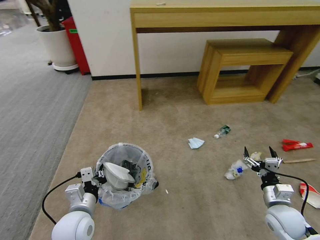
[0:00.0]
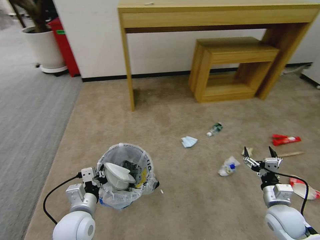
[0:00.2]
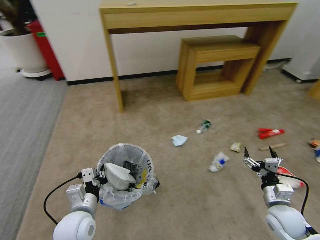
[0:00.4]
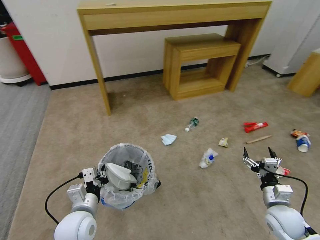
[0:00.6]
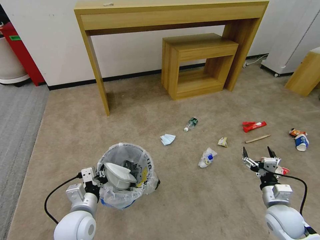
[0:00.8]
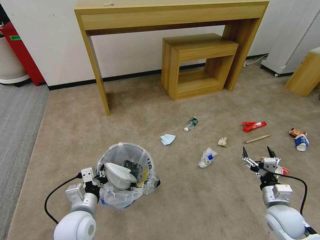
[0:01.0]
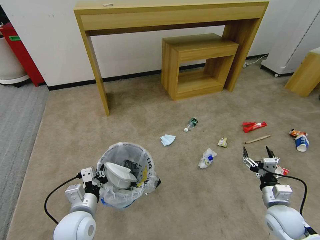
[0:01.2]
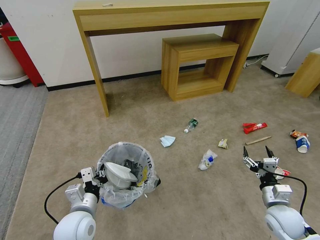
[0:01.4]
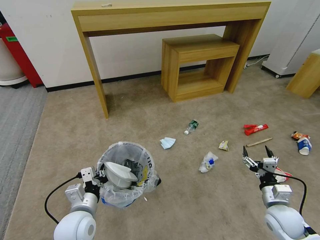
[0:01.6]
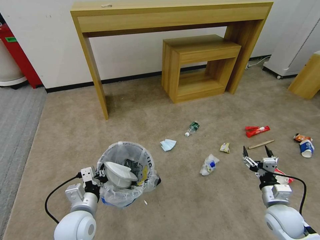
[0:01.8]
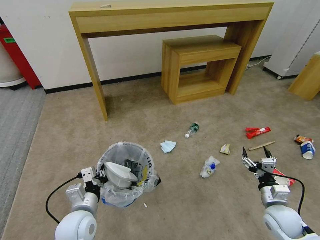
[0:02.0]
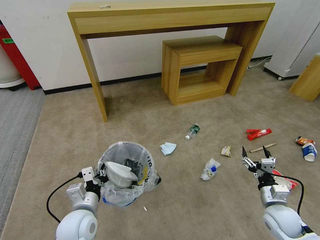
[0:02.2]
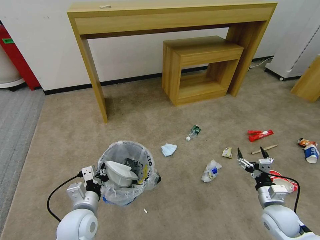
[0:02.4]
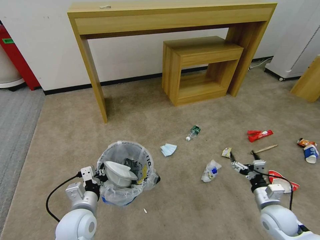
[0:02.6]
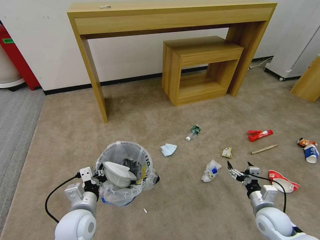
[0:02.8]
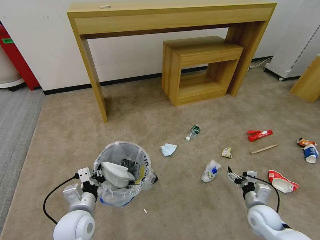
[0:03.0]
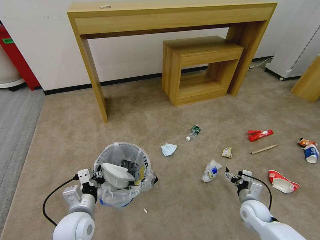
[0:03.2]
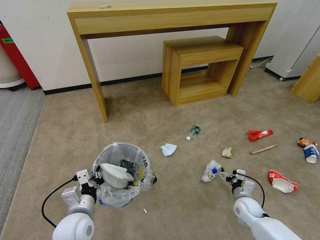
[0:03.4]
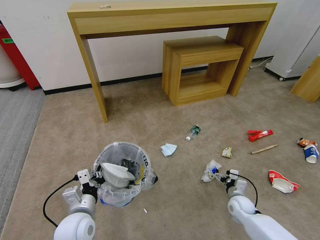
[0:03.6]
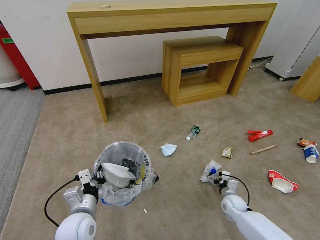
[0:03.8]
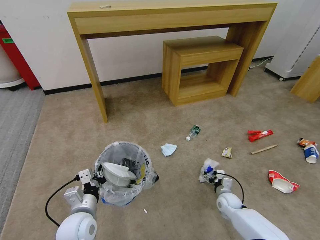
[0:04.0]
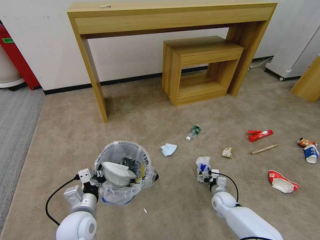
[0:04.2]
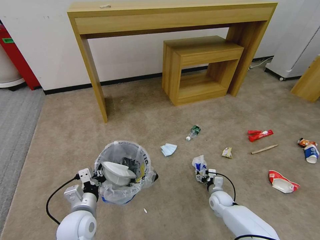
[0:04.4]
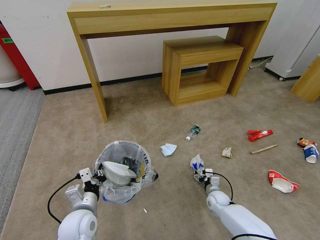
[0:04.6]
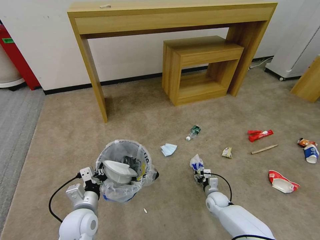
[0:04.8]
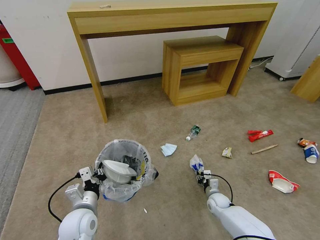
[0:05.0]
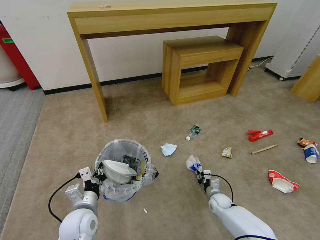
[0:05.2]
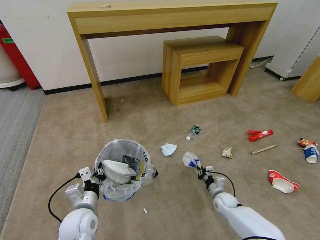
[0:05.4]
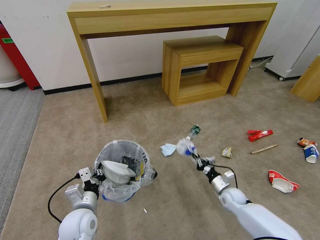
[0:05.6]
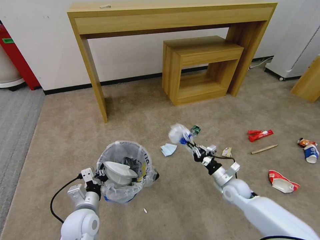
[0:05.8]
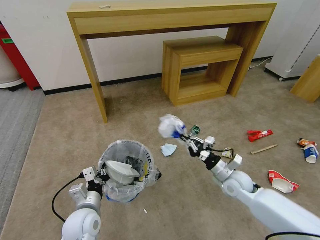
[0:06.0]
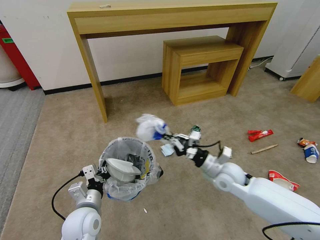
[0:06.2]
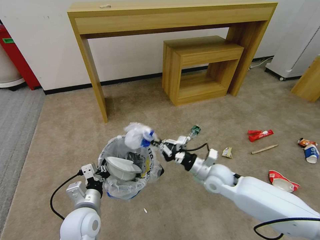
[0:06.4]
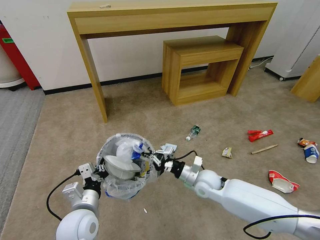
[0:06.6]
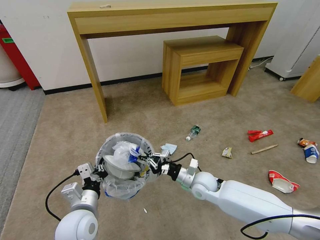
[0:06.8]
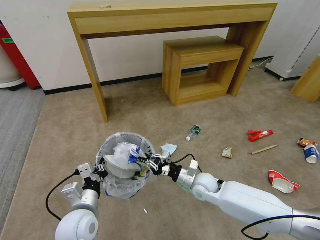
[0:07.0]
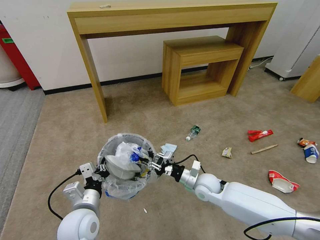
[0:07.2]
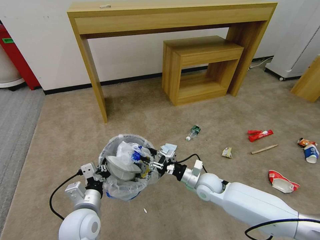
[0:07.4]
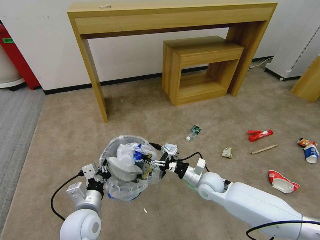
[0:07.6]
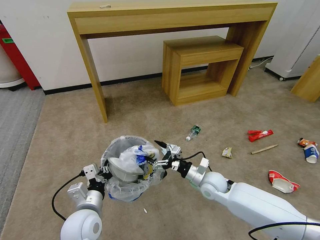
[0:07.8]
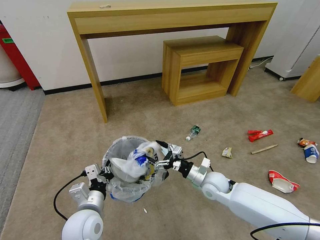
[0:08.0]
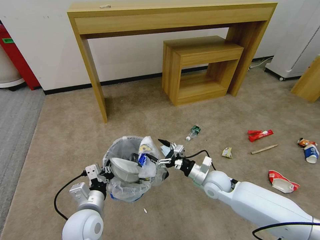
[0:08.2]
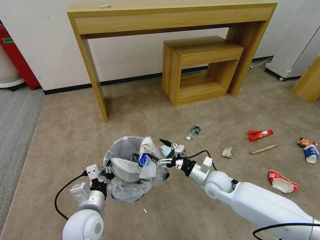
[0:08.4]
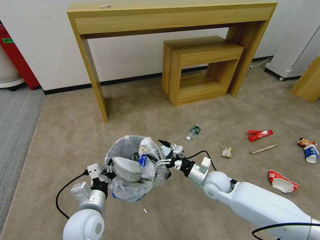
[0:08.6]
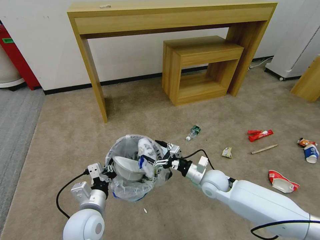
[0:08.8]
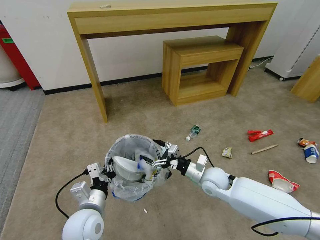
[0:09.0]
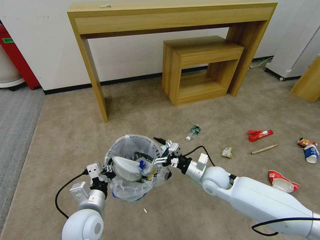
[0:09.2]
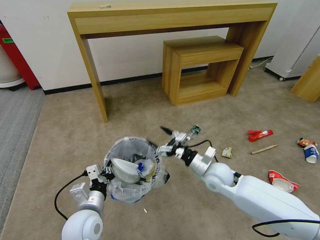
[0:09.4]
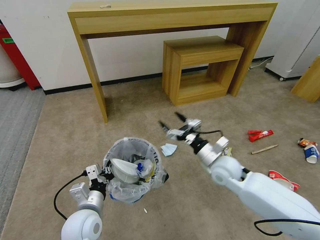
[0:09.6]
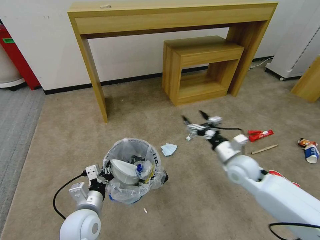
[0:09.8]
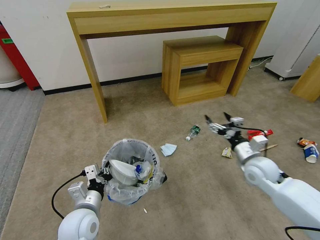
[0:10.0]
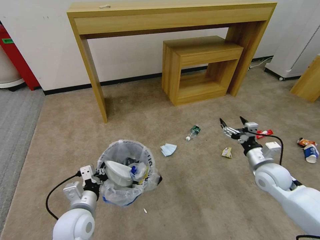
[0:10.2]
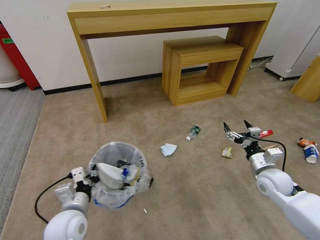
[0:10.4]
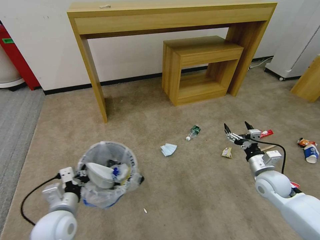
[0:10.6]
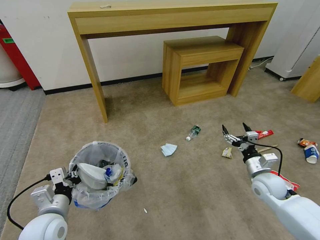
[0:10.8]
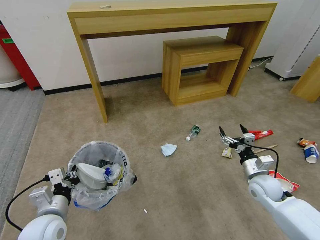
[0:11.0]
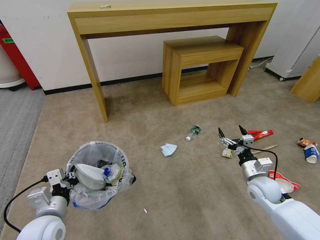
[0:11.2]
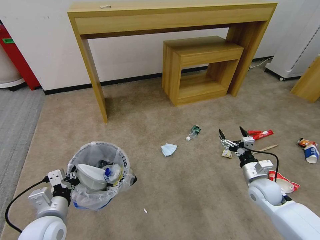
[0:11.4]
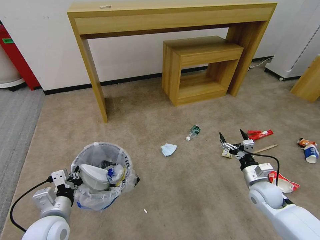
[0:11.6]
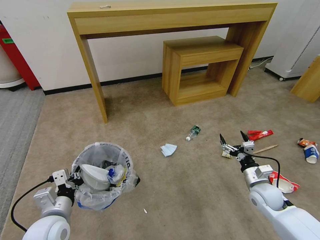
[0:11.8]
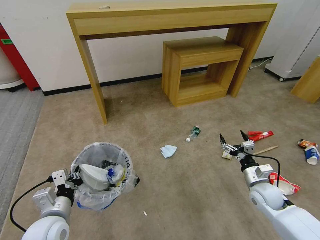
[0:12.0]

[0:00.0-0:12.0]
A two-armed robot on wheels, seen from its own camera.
Task of the whole recording: Pick up the trash bin and place the garbage on the floor into it.
0:01.6 to 0:03.0: The right gripper travels downward by about 5 cm.
0:03.0 to 0:04.4: The right gripper heads downward, forward and to the left, covering about 15 cm.
0:04.4 to 0:06.0: The right gripper goes about 20 cm upward, and closes.
0:06.0 to 0:07.6: The right gripper moves to the left, some 10 cm, and opens up.
0:07.6 to 0:09.0: The grippers move only a little.
0:09.0 to 0:10.4: The right gripper moves to the right, about 20 cm.
0:10.4 to 0:12.0: The right gripper moves downward, some 5 cm.

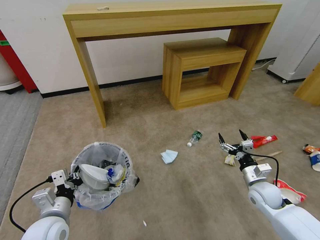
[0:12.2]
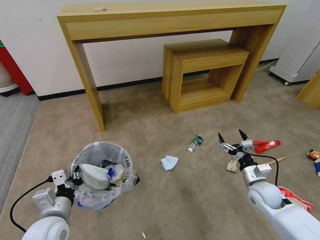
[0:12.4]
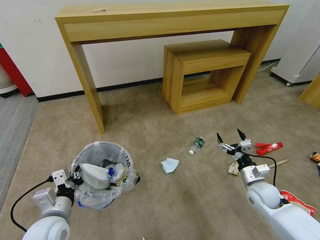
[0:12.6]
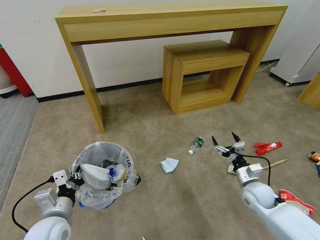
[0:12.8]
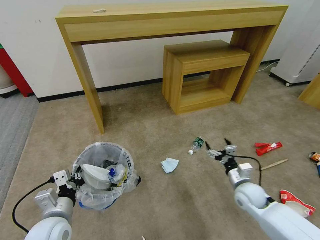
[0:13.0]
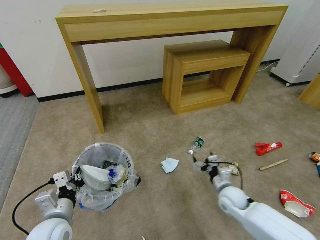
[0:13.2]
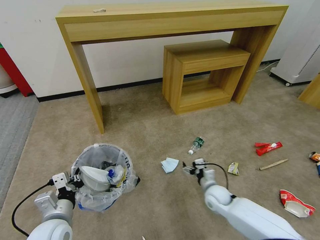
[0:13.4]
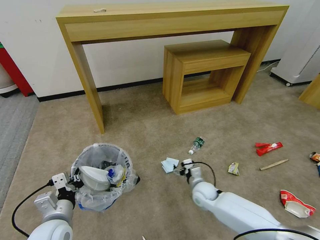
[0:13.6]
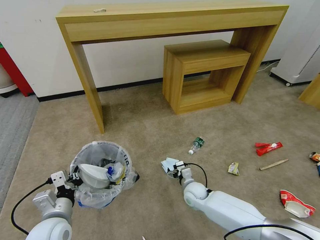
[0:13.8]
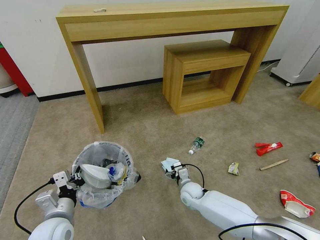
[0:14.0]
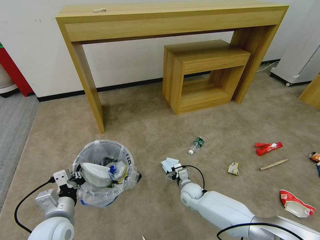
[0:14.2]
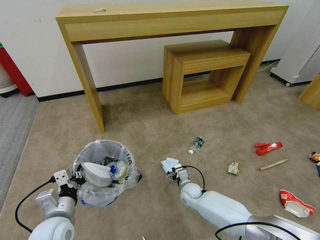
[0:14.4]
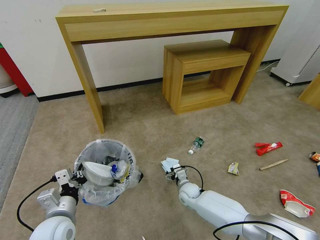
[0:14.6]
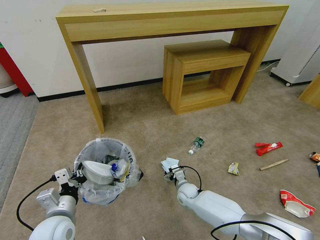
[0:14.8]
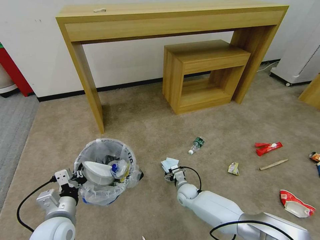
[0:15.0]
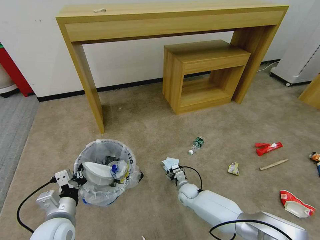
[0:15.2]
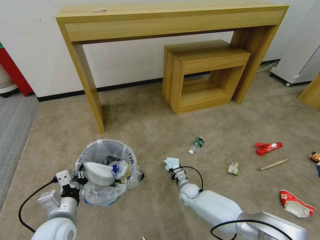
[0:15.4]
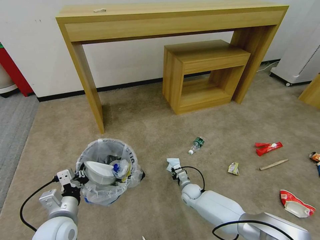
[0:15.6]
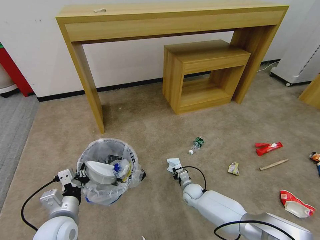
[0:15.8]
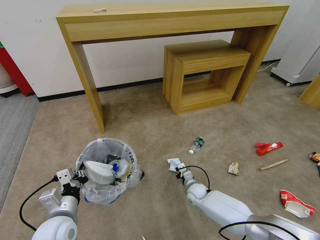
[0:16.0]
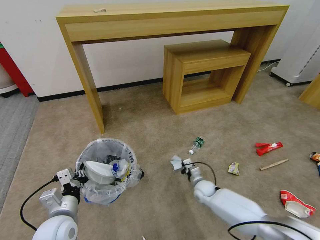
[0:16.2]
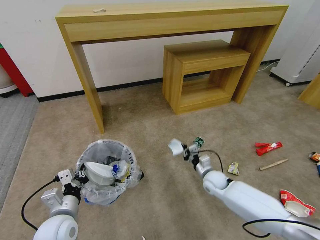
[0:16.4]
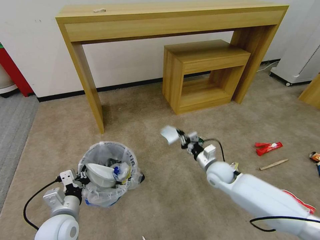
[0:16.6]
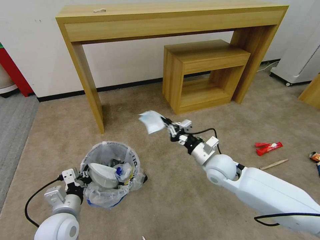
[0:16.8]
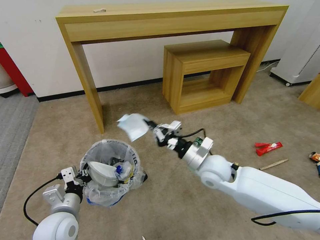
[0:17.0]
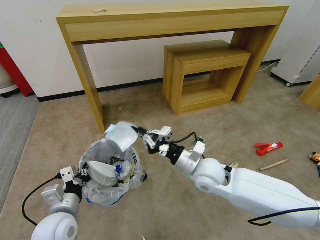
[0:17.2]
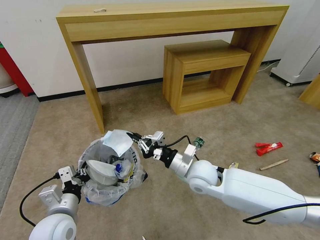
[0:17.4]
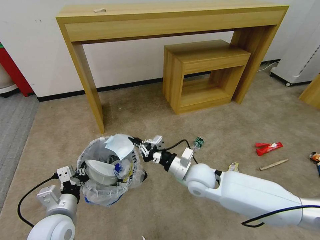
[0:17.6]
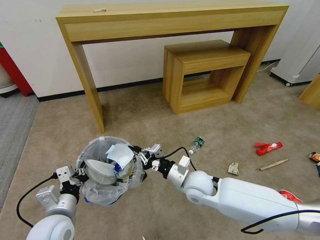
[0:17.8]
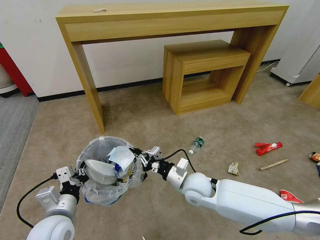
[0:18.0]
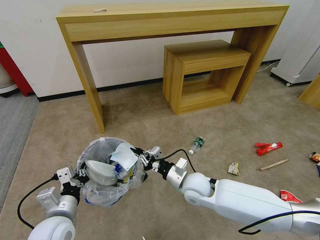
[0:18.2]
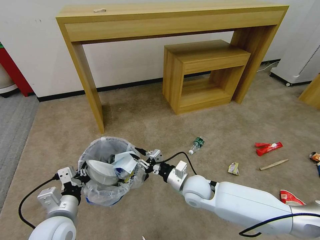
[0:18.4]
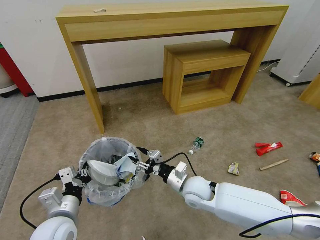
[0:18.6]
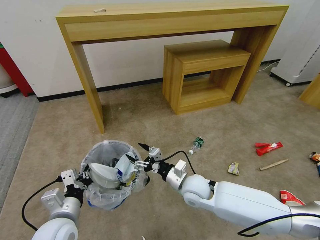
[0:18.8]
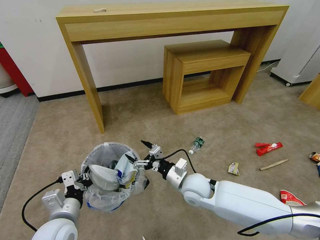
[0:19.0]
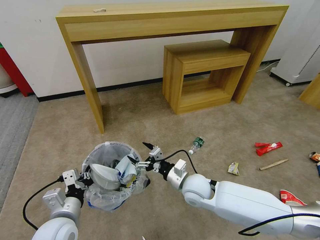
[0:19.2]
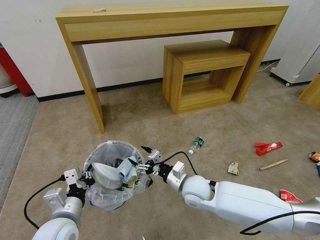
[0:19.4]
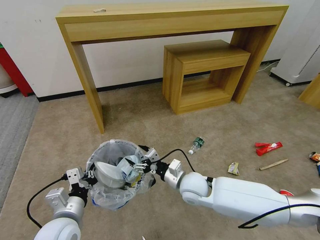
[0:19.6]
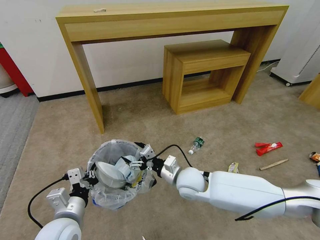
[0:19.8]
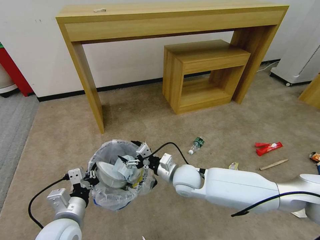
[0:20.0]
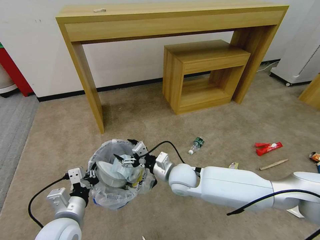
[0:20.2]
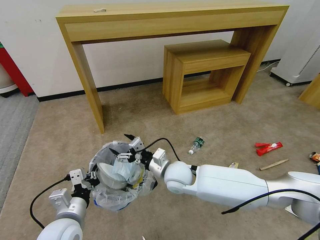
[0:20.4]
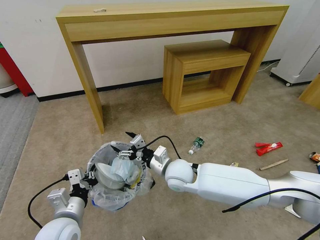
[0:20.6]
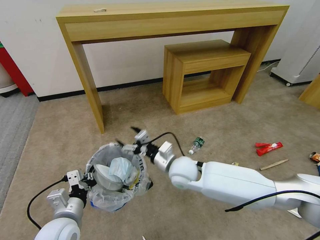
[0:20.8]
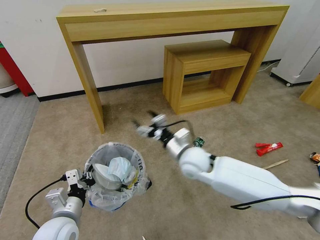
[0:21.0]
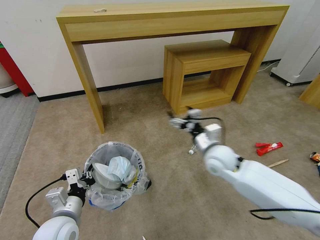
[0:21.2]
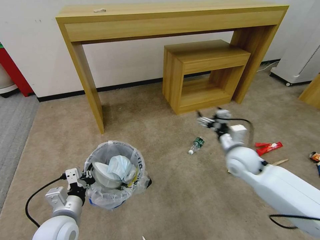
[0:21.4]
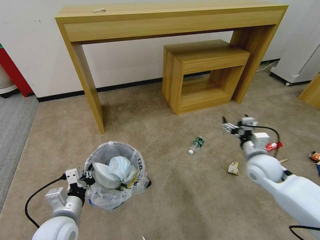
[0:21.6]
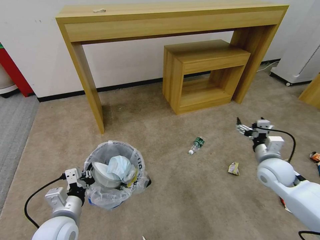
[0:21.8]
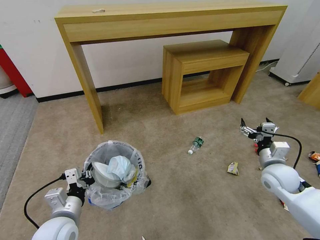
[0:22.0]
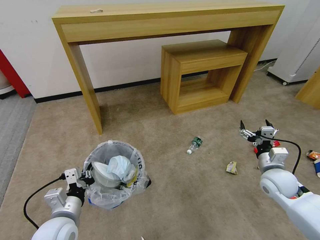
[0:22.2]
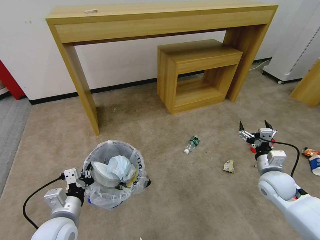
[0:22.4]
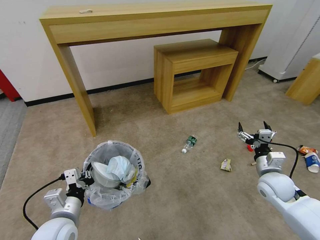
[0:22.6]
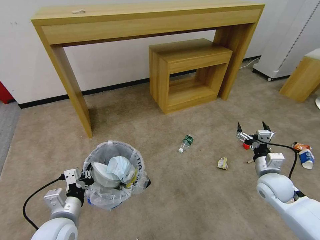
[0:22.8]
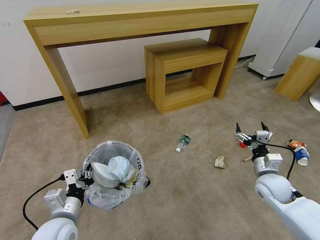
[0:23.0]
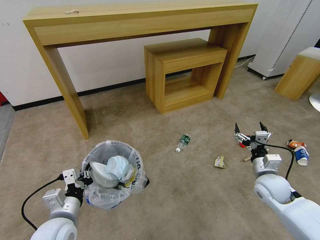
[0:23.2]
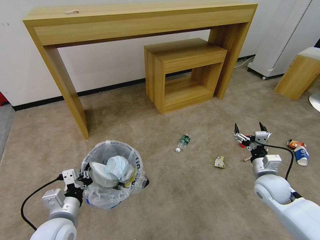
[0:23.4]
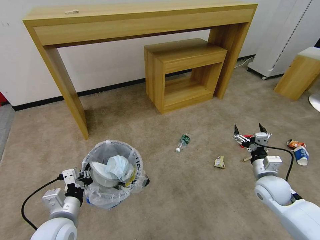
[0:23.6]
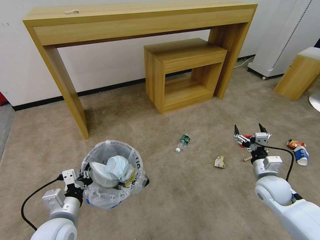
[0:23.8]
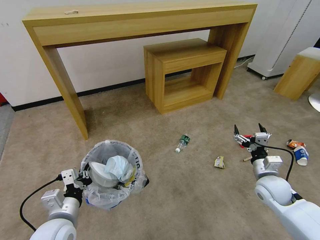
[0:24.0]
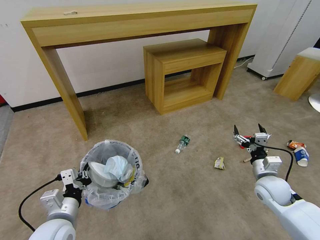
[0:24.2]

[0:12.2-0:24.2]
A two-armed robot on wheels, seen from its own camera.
Task of the whole recording: Pick up the trash bin and place the garbage on the floor into it.
0:12.2 to 0:13.8: The right gripper shifts approximately 25 cm to the left and downward.
0:13.8 to 0:15.2: The right gripper shifts about 5 cm downward.
0:15.2 to 0:16.6: The right gripper moves upward and to the right, some 20 cm, and closes its fingers.
0:16.6 to 0:18.2: The right gripper heads to the left and backward, covering some 15 cm.
0:18.2 to 0:19.8: The right gripper opens its fingers.
0:19.8 to 0:21.2: The right gripper heads to the right and upward, covering some 10 cm.
0:21.2 to 0:22.6: The right gripper is displaced to the right by roughly 20 cm.
0:22.6 to 0:24.2: The grippers stay close to where they were, moving slightly.
